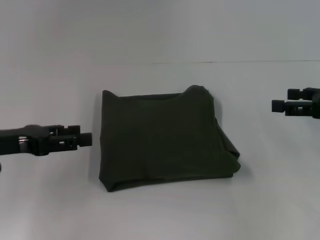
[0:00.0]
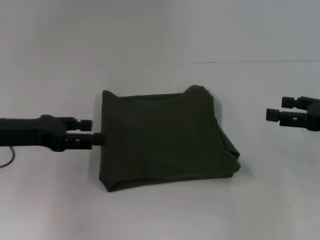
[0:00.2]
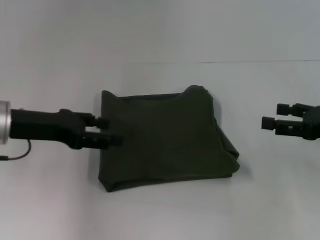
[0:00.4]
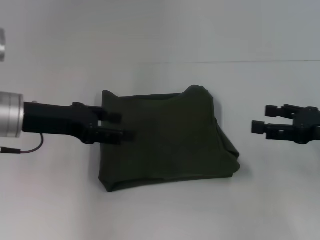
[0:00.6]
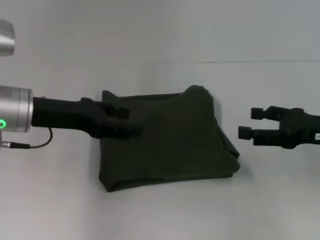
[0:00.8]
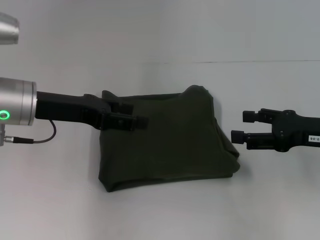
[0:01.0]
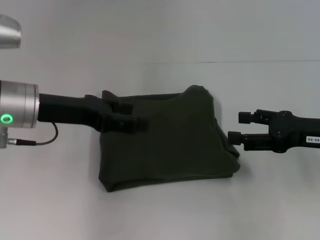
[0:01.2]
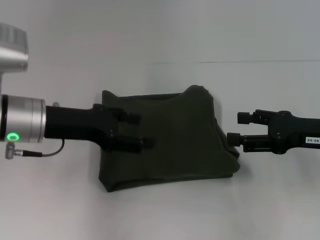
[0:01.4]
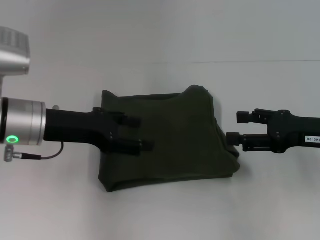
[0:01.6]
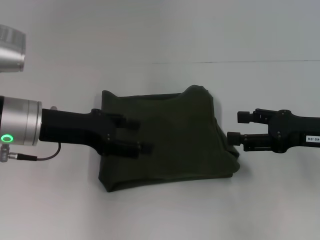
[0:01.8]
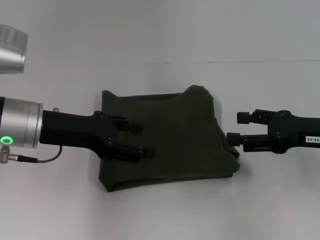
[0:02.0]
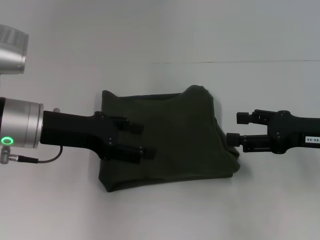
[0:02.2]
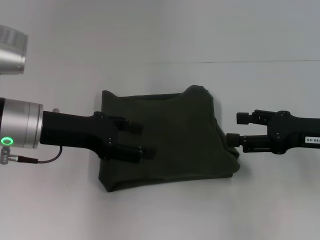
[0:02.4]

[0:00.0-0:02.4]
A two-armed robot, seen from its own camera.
0:00.0 to 0:01.2: The right gripper goes about 5 cm to the left; the left gripper moves to the right, about 10 cm.
0:01.2 to 0:02.4: There are only small adjustments of the grippers.
